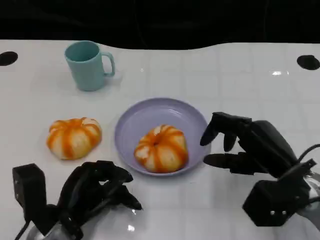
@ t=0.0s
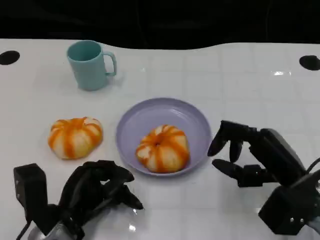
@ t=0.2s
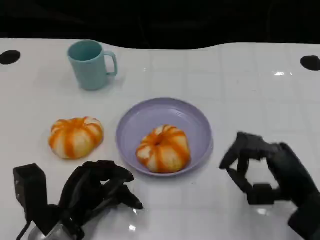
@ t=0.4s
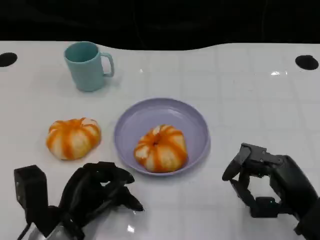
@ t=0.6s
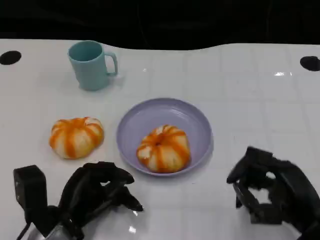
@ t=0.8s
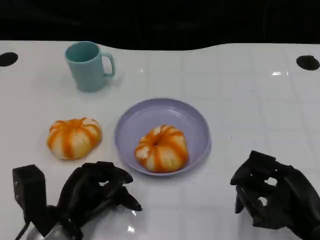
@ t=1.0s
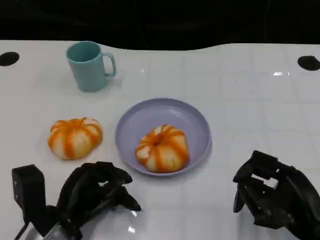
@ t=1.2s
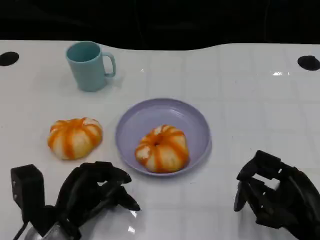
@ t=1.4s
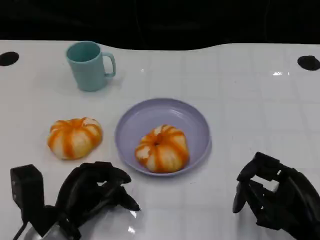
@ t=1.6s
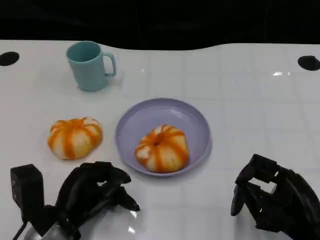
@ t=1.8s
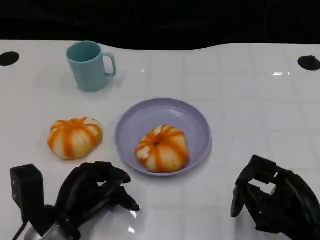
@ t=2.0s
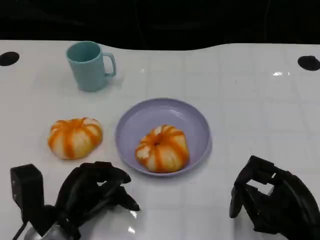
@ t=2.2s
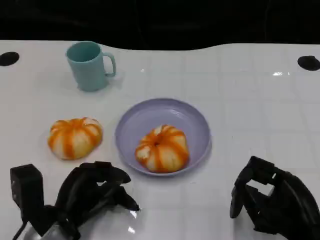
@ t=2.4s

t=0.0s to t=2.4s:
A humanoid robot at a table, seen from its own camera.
Task of the whole recording: Grasp the bread from the table and place it into the plate.
t=0.0s to t=1.2s: The right hand travels backward by approximately 5 cm.
t=1.2s to t=2.4s: The hands stay close to where they were, moving slightly.

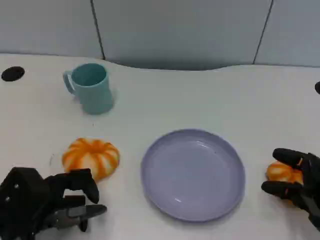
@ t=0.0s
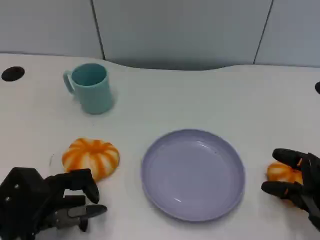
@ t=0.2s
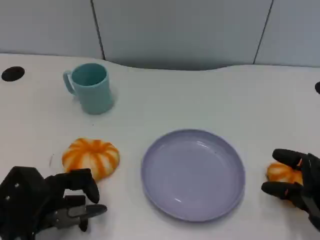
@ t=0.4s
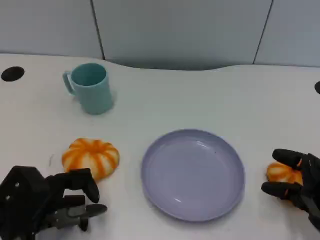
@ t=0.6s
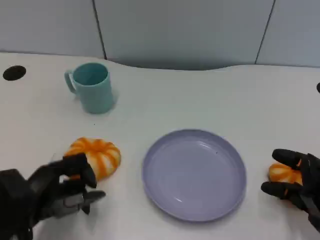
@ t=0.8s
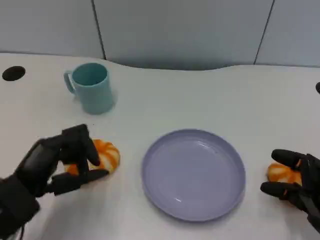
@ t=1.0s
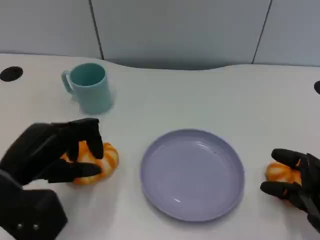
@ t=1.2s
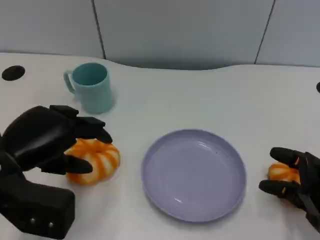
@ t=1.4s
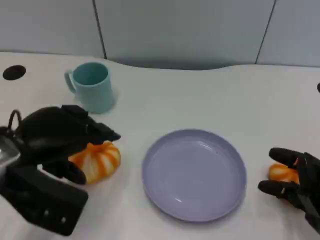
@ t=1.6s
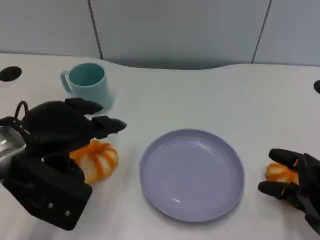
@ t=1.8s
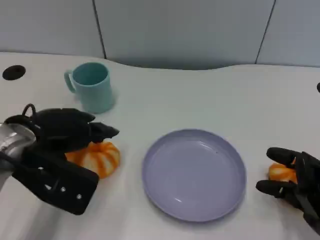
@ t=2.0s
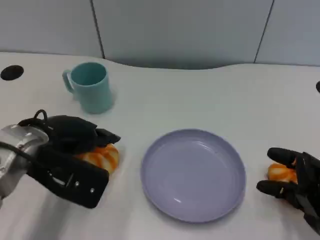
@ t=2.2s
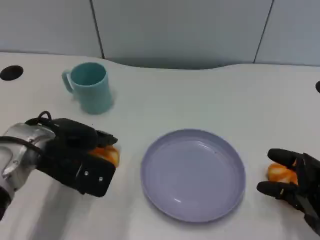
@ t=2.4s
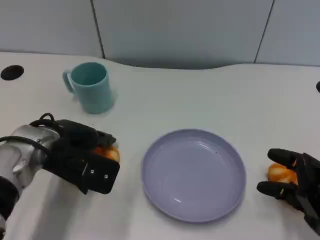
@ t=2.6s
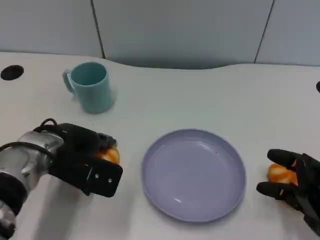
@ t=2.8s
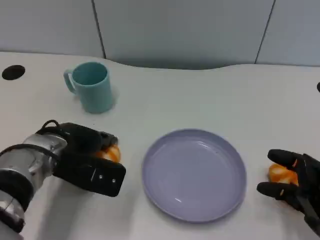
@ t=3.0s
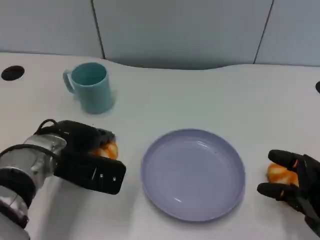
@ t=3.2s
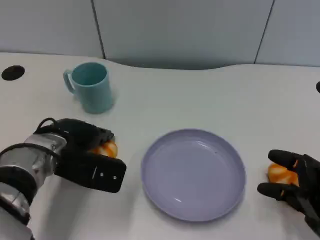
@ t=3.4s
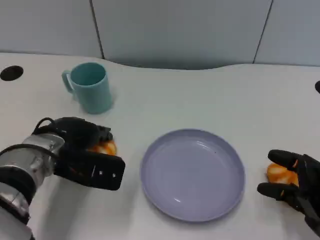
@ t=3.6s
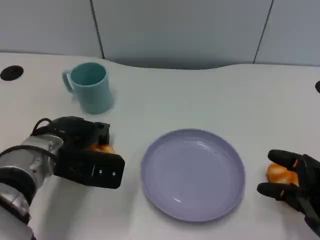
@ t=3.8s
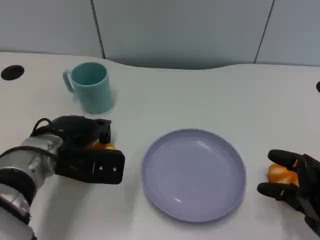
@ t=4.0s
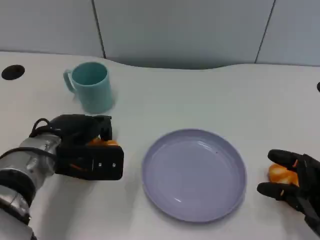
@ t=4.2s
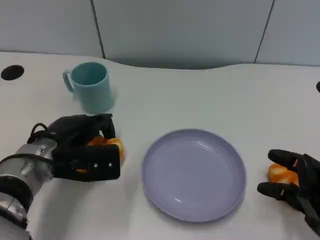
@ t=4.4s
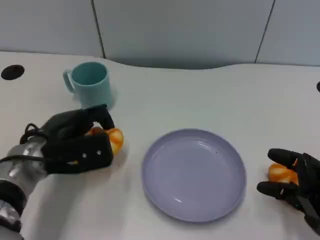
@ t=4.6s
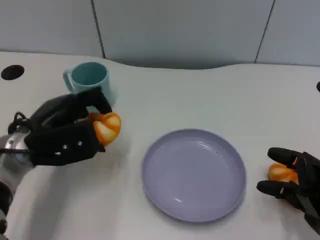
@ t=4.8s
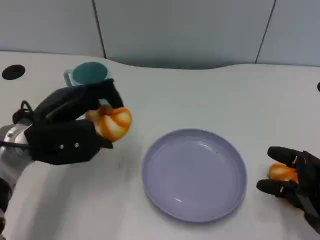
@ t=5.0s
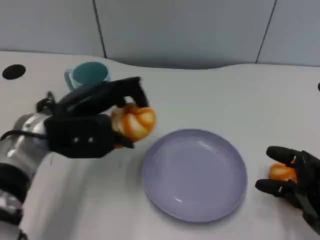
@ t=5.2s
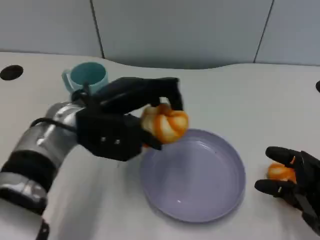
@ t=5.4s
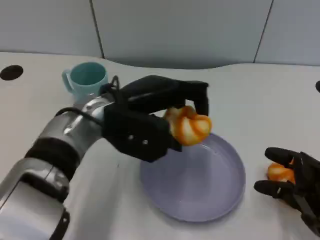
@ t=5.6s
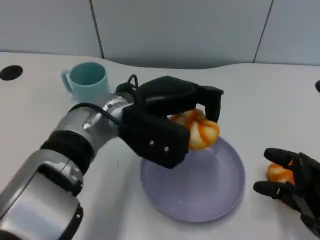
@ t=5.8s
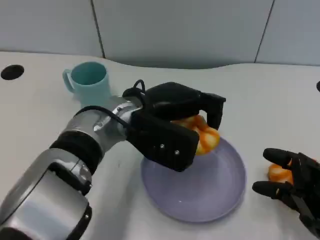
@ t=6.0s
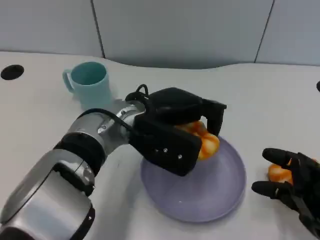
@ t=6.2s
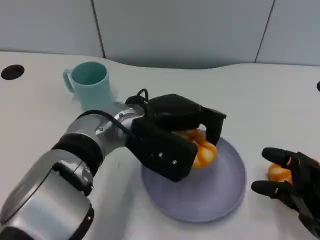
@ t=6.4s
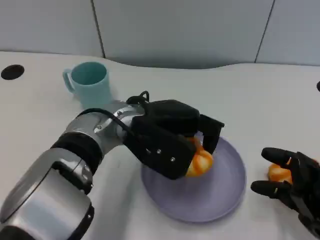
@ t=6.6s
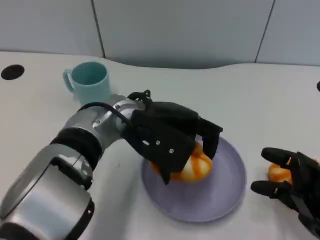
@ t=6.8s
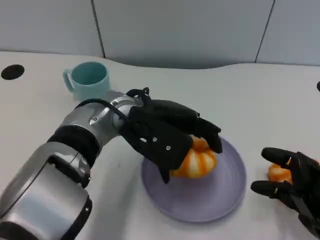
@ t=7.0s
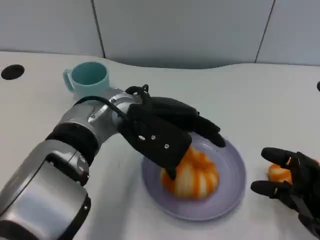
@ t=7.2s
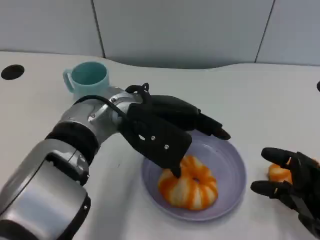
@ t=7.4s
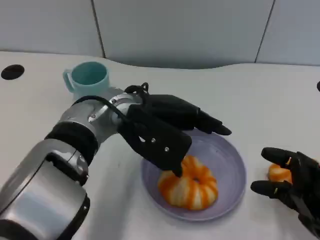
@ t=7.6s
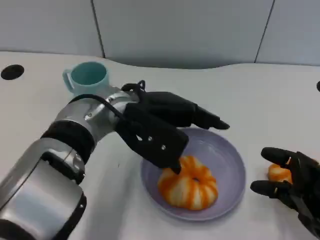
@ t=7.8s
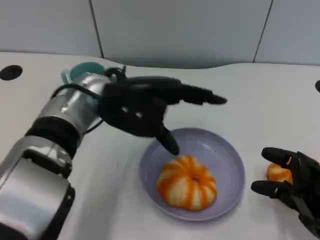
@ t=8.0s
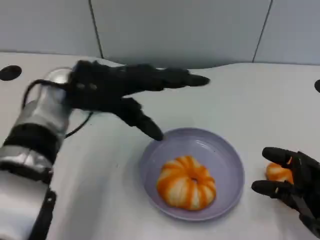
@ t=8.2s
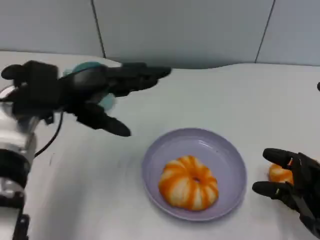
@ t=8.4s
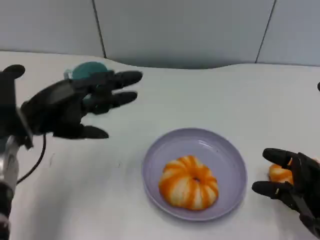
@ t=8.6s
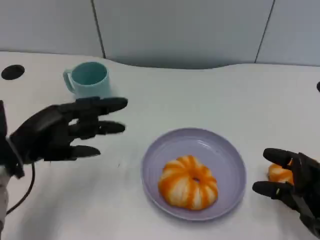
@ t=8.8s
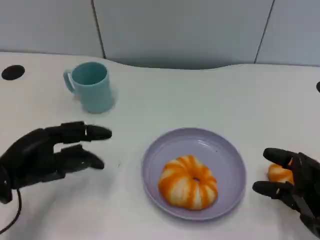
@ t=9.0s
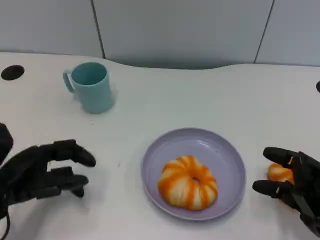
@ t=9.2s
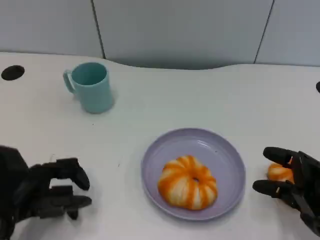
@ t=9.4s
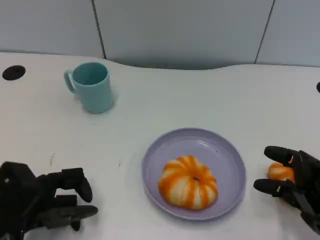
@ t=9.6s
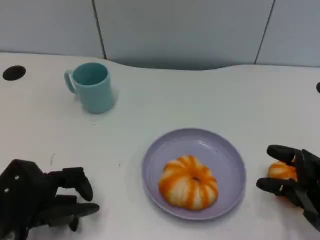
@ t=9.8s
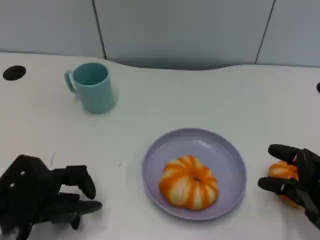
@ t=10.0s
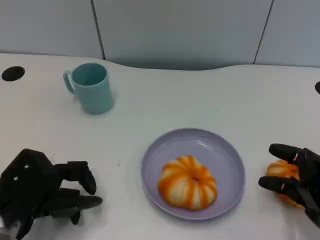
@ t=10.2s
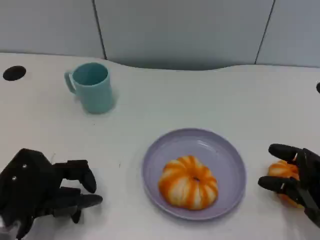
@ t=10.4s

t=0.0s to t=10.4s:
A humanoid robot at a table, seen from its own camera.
Task of the whole recording: Grasp the bread from the table and place it into the plate.
t=0.0s to t=1.4s: The left hand goes some 10 cm upward.
t=1.4s to t=3.0s: The left hand moves forward, downward and to the right, approximately 10 cm.
t=4.4s to t=6.0s: The left hand travels to the right and upward by roughly 15 cm.
t=6.0s to t=7.4s: The hands stay close to where they were, moving slightly.
t=7.4s to t=9.0s: The left hand travels to the left by roughly 20 cm.
t=9.0s to t=10.4s: The left hand moves some 5 cm.

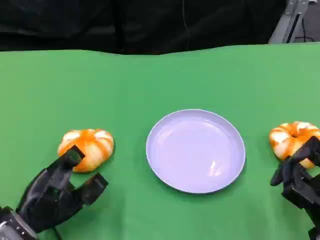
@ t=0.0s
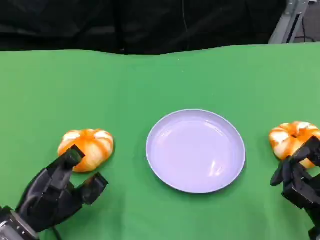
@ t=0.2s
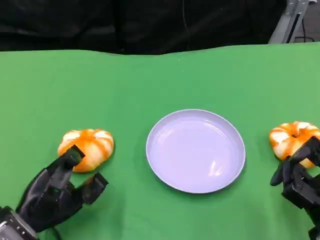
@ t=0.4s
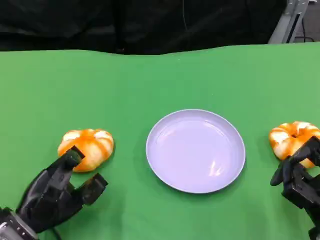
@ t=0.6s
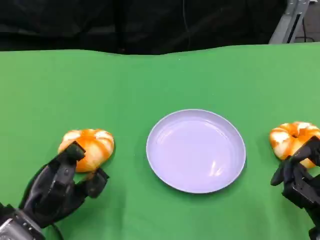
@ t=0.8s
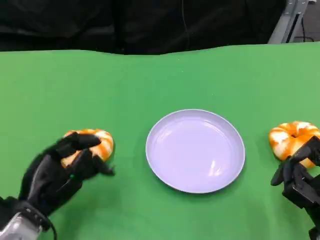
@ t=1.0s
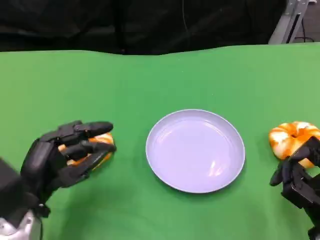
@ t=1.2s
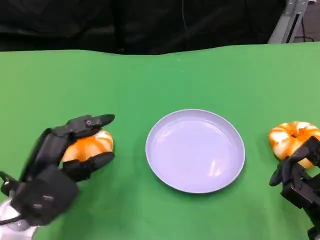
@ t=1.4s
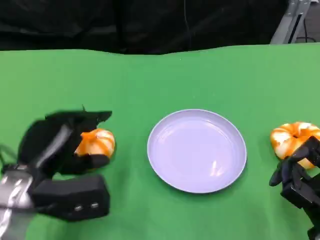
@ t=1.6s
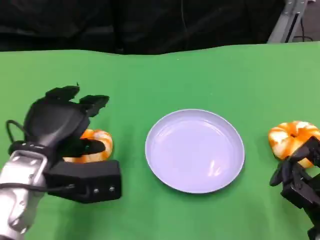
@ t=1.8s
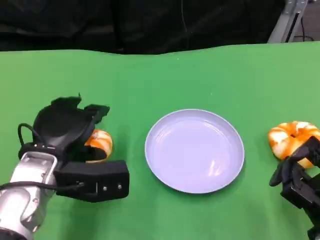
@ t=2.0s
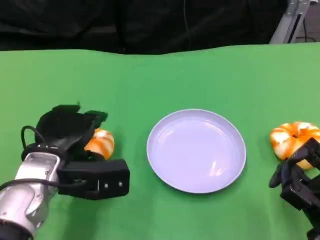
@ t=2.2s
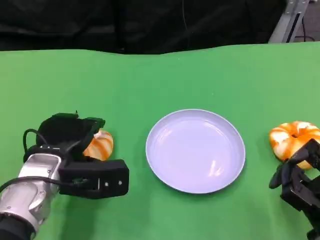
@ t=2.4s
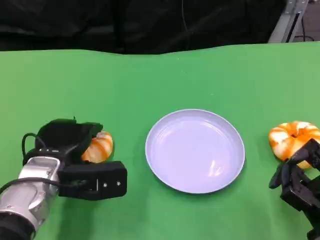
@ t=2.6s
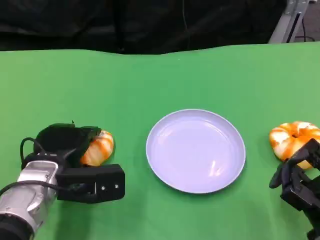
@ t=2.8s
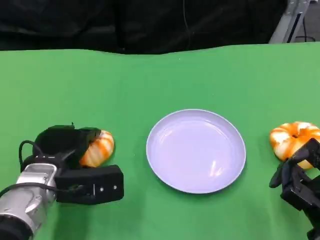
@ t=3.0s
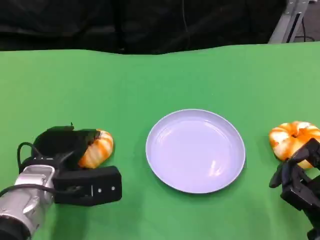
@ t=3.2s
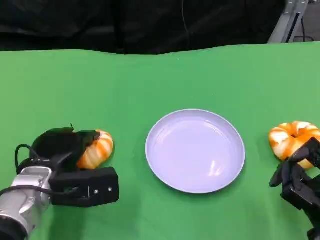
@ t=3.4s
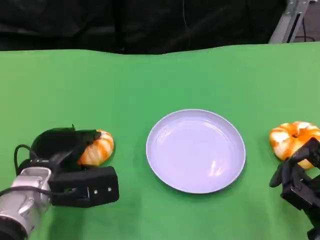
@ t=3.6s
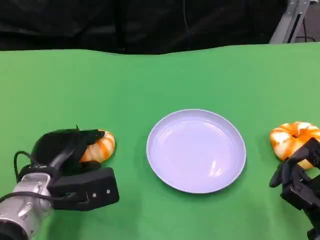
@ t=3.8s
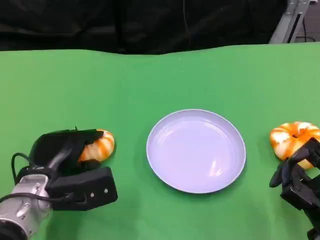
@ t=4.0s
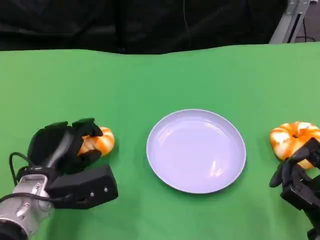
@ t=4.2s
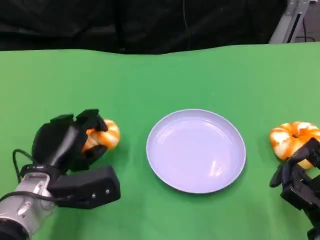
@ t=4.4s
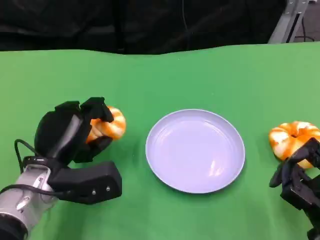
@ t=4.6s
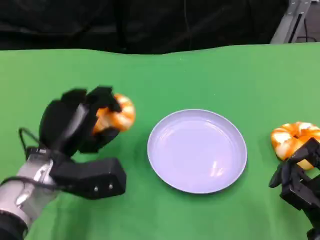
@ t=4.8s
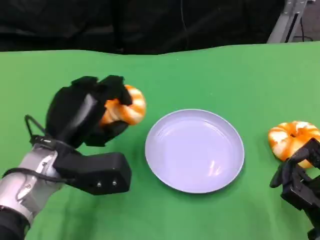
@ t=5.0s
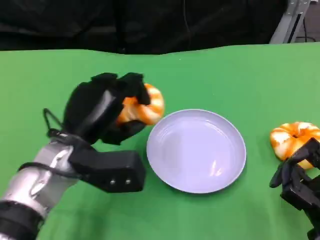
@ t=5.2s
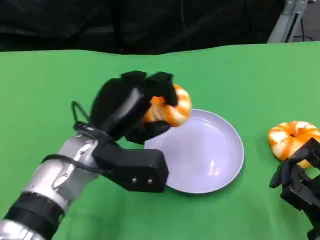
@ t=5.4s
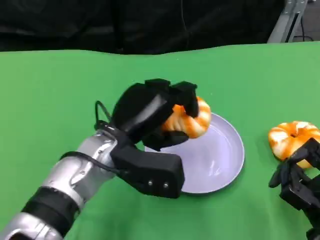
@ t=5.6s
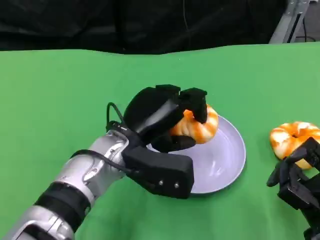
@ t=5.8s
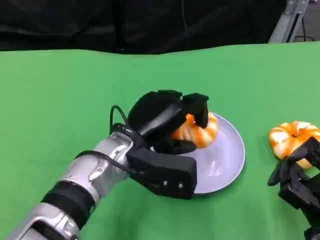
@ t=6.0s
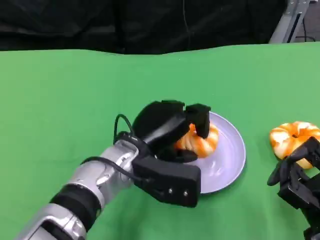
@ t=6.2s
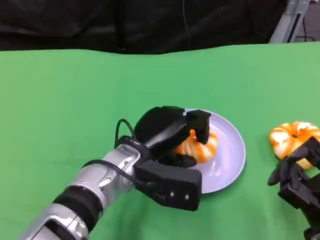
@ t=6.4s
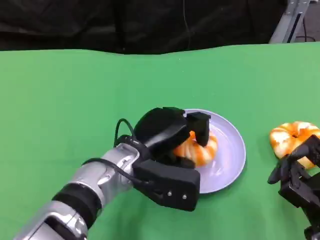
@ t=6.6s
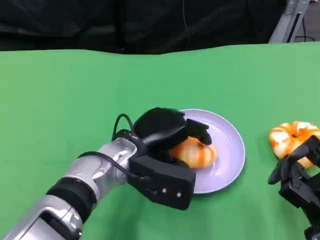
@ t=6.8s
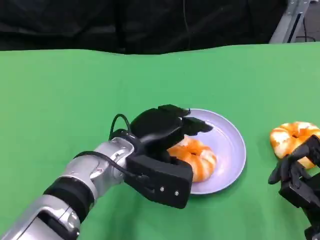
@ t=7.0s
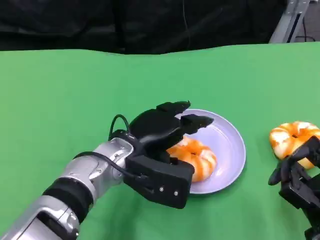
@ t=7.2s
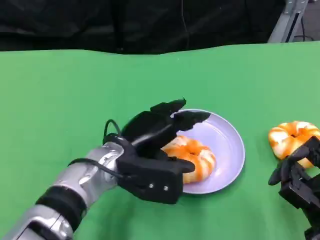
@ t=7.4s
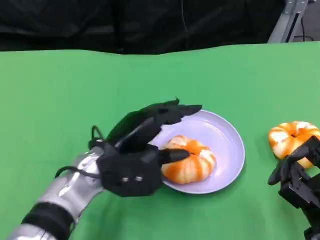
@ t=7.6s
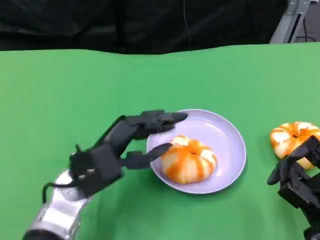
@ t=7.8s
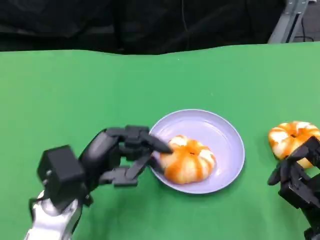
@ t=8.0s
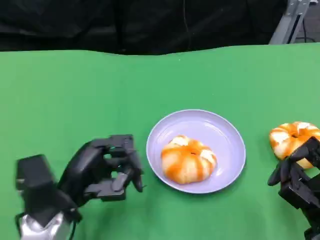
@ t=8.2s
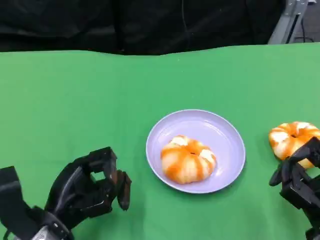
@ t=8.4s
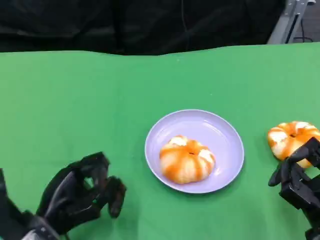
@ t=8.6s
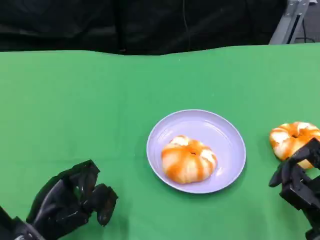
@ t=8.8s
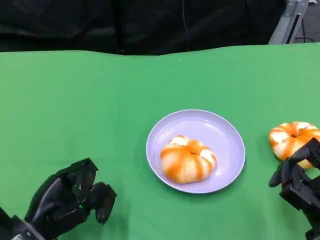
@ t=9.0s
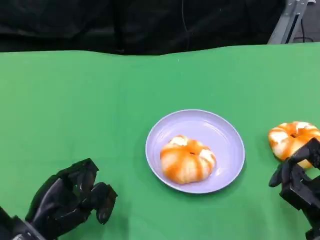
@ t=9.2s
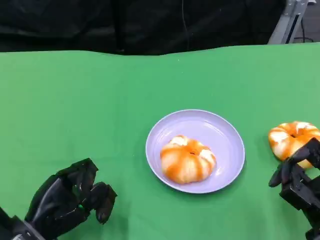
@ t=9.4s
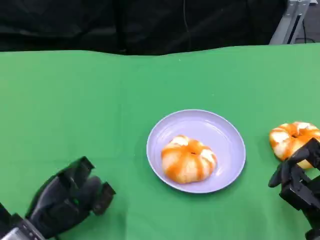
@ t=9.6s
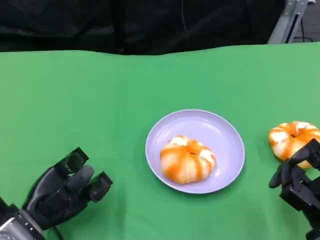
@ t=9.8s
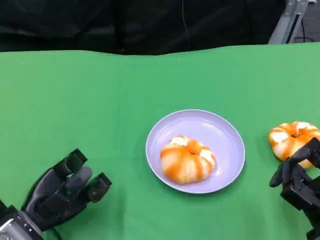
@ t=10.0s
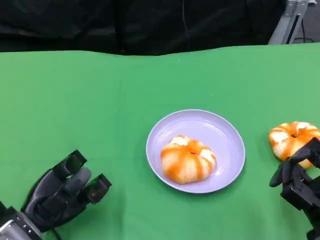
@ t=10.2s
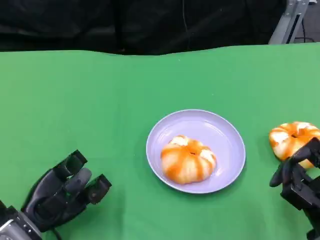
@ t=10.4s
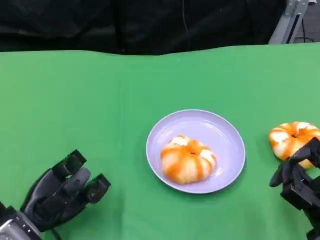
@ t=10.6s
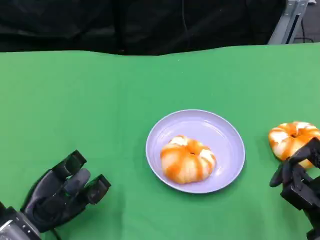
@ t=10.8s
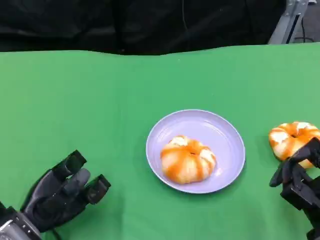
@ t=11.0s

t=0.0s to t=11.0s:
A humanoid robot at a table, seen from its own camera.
Task of the whole recording: Grasp the bread from the table and place it into the plate.
t=0.0s to t=1.6s: The left hand travels upward by some 10 cm.
t=1.6s to t=3.2s: The left hand moves approximately 5 cm.
t=4.8s to t=6.2s: The left hand is displaced to the right by some 10 cm.
t=6.2s to t=7.8s: The left hand heads to the left, covering approximately 10 cm.
t=7.8s to t=9.4s: The left hand travels to the left, downward and backward by approximately 10 cm.
t=9.4s to t=11.0s: The hands make only small movements.
